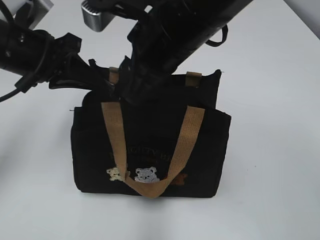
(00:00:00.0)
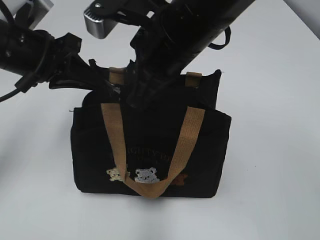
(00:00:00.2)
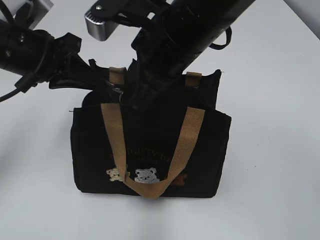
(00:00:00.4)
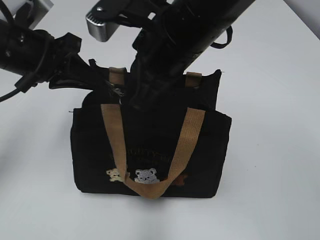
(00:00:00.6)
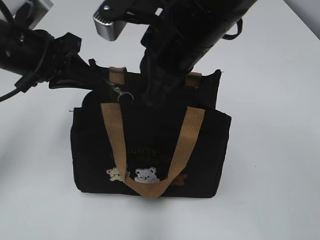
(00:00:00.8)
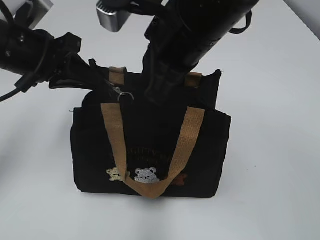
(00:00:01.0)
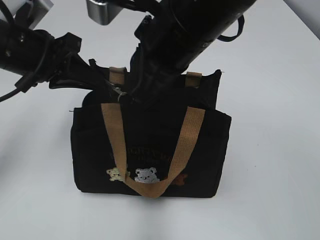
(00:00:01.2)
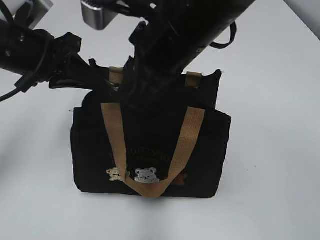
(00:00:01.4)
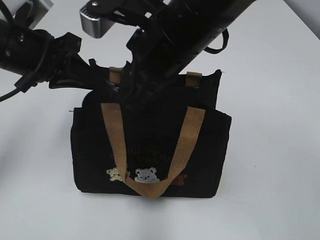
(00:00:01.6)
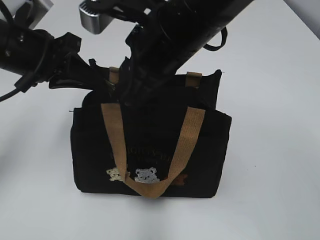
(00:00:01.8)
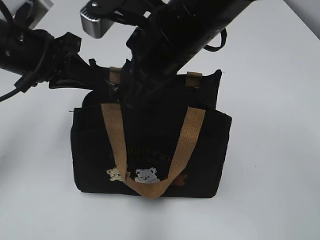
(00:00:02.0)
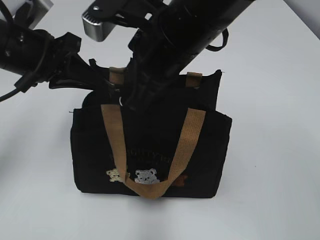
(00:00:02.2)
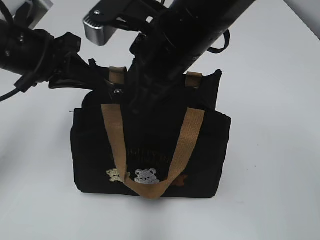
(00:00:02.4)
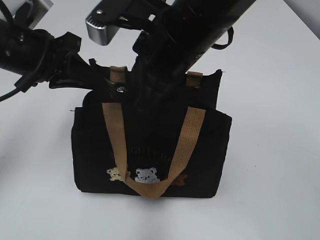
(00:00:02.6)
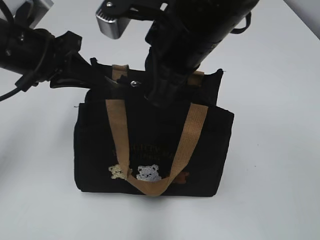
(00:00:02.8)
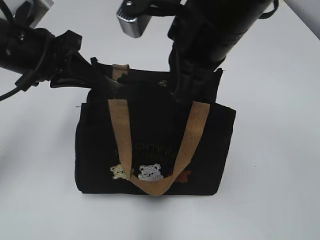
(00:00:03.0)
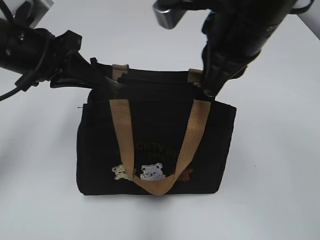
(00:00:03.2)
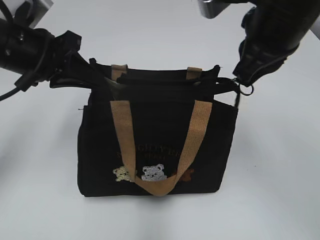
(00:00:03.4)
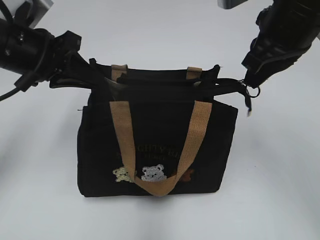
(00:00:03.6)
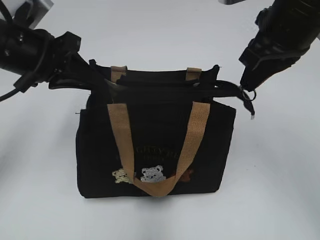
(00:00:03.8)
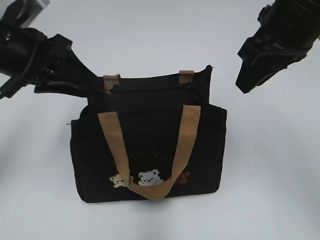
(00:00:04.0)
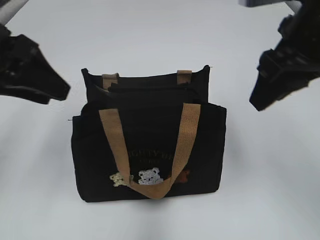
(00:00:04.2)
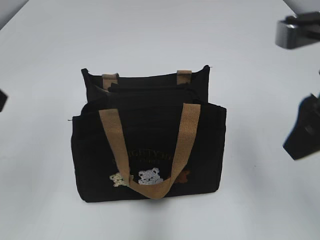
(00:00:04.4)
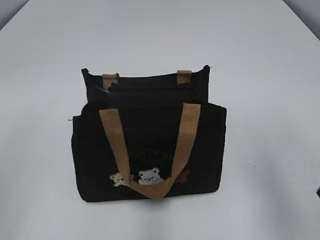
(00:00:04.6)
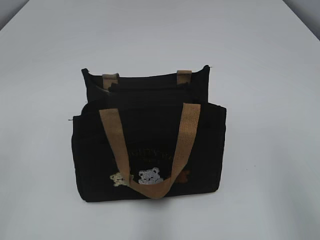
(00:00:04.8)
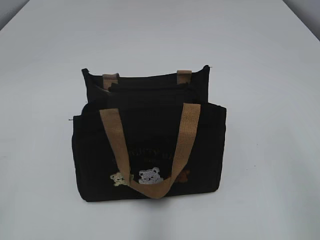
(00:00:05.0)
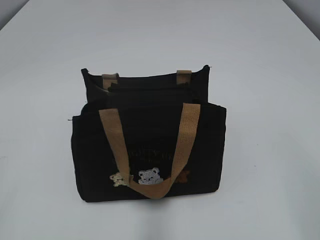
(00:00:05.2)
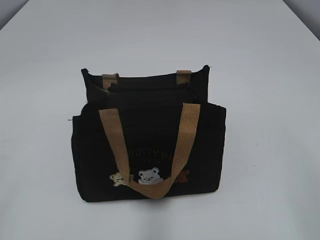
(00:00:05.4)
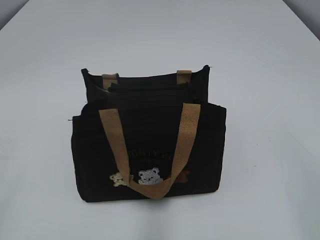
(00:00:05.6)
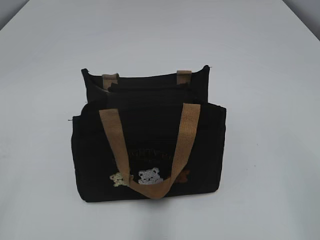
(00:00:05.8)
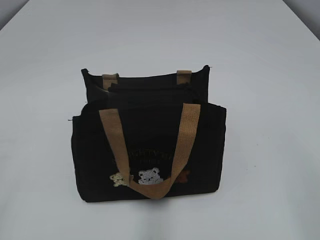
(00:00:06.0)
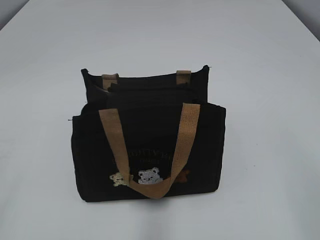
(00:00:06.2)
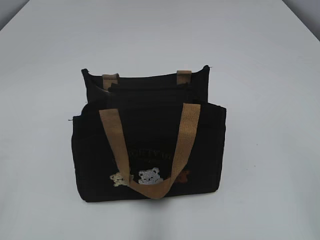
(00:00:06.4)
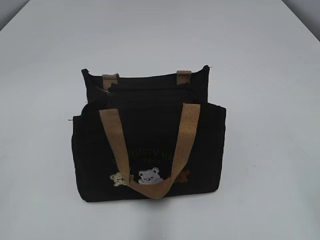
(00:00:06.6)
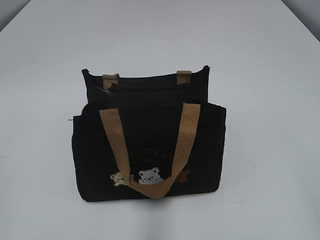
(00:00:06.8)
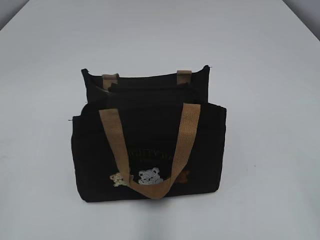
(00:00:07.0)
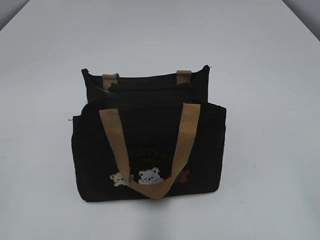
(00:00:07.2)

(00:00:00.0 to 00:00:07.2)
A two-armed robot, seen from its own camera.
Step, 00:00:00.0 - 00:00:03.8: Pull open the zipper with your right hand.
00:00:00.0 - 00:00:02.8: There are only small adjustments of the grippers.
00:00:02.8 - 00:00:04.4: The left gripper is displaced backward, upward and to the left by approximately 15 cm, and opens up, while the right gripper goes about 15 cm to the right and backward, and opens up.
00:00:04.4 - 00:00:05.8: The left gripper is displaced backward by roughly 20 cm; the right gripper heads backward and to the right, covering approximately 20 cm.
